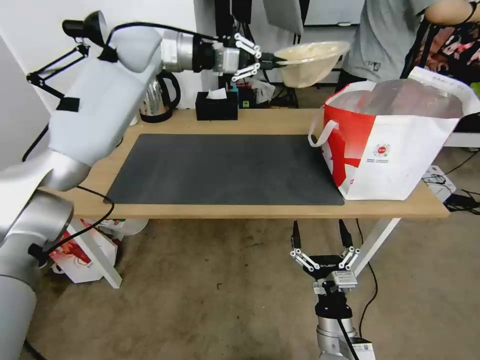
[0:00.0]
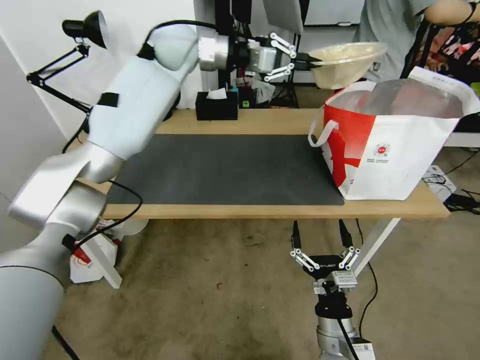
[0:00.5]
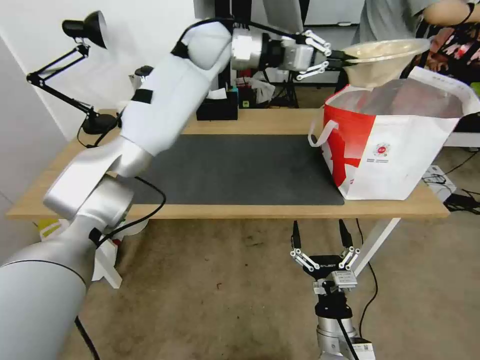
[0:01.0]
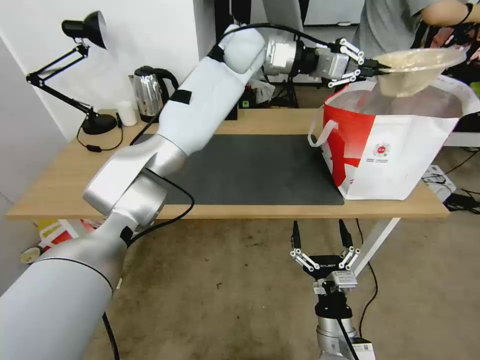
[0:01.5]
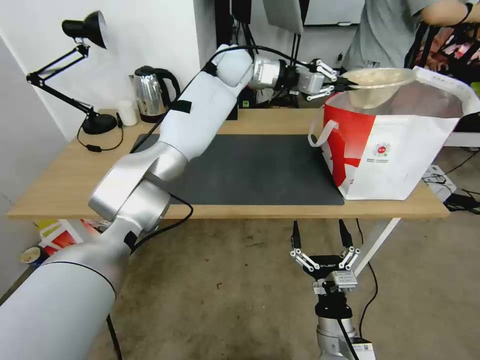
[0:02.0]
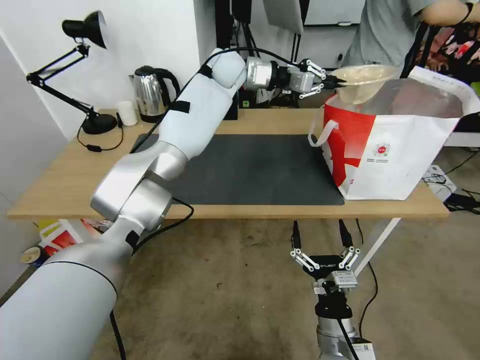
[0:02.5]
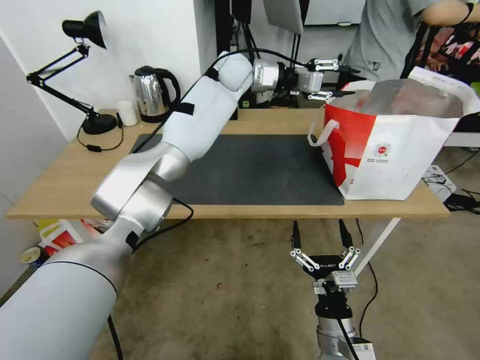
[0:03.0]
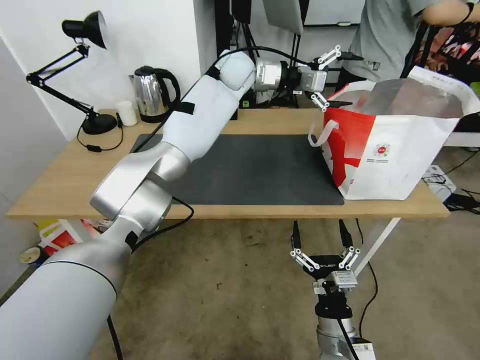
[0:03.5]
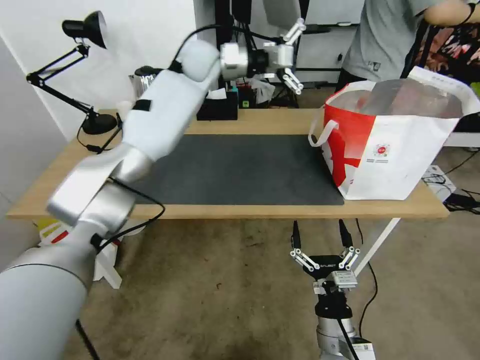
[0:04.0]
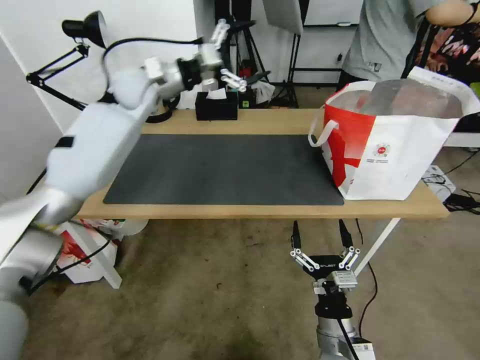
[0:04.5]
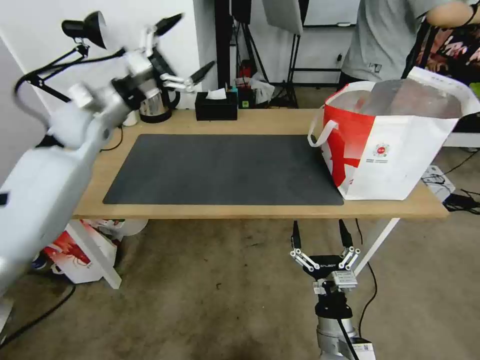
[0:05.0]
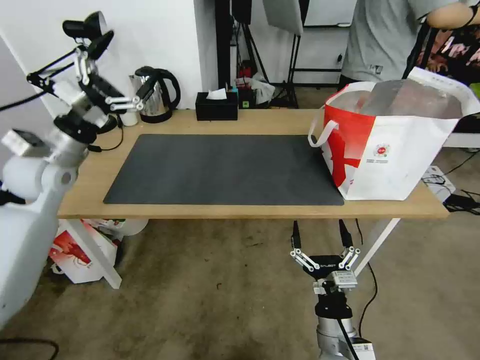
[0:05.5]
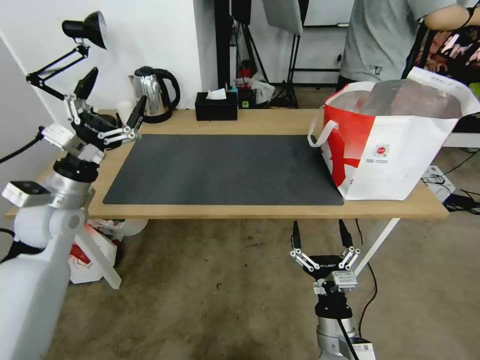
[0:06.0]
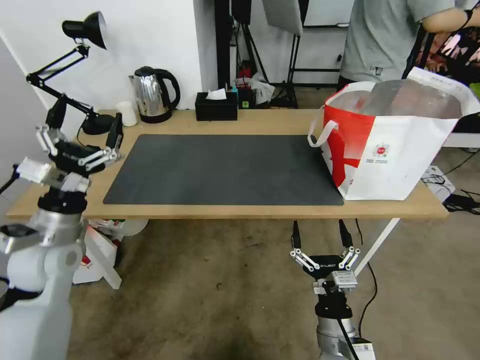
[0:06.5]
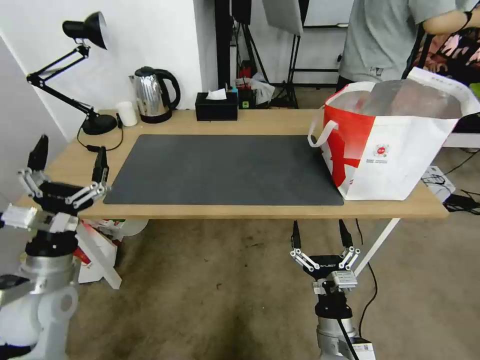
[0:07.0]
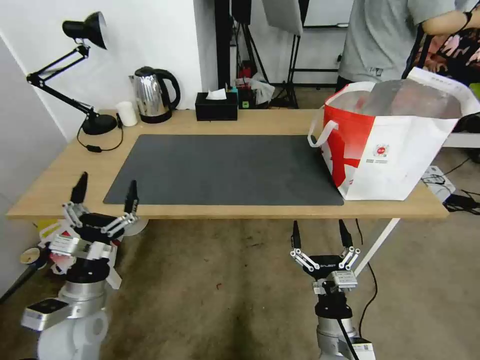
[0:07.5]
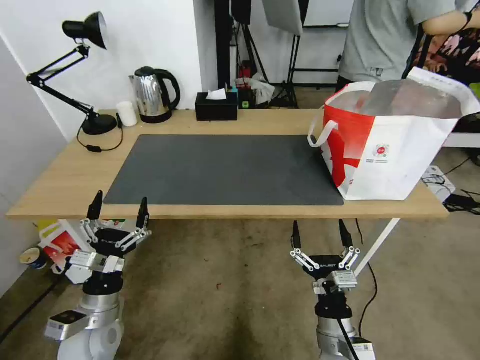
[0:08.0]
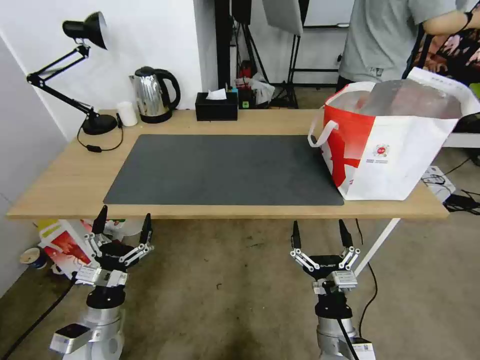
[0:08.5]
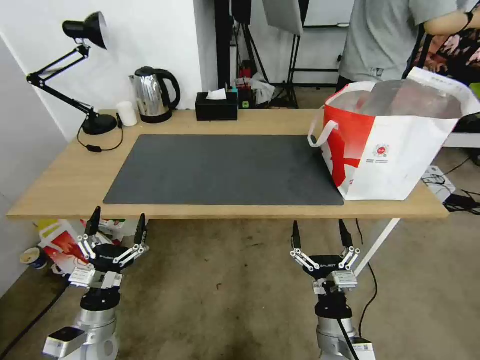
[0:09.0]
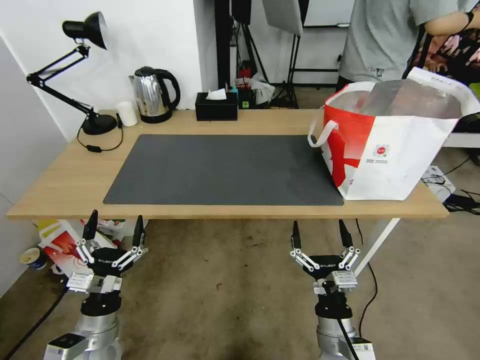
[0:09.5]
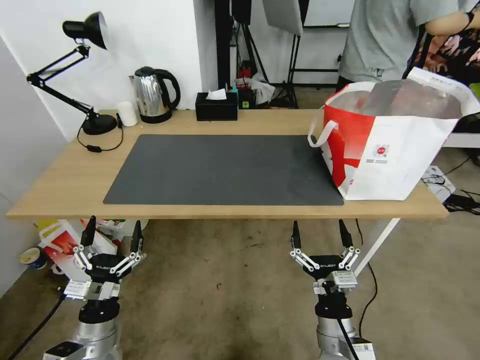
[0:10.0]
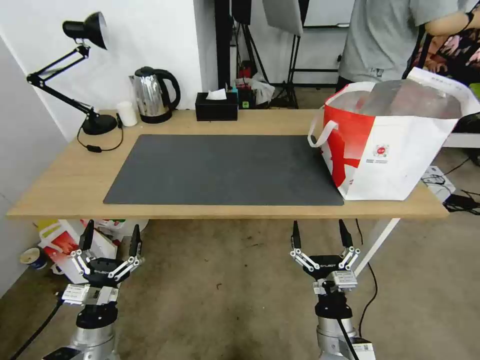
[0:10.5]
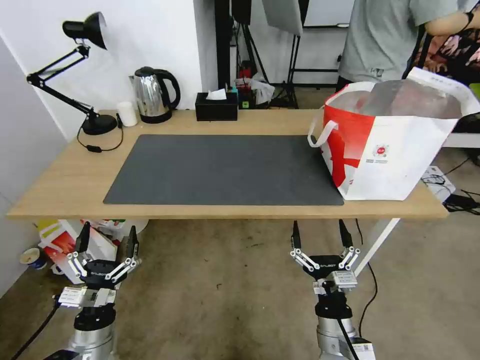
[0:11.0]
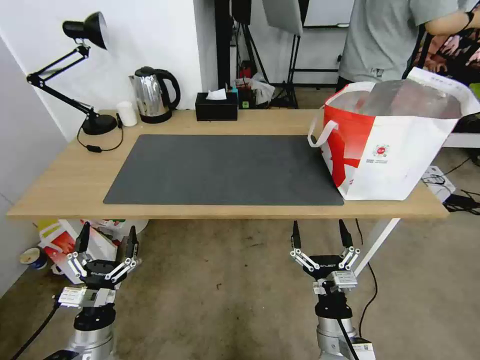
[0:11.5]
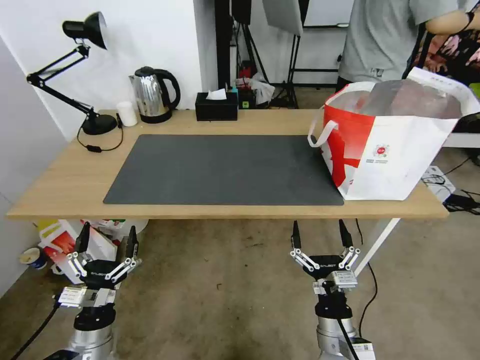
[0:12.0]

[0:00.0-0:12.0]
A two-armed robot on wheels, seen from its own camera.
Task of the whole recording: Pick up the trash from the table and place it into the takeout bag.
0:00.0 to 0:02.0: The left gripper moves to the right, some 20 cm.
0:02.0 to 0:04.0: The left gripper goes about 10 cm to the left, and opens its fingers.
0:04.0 to 0:06.0: The left gripper moves backward, to the left and downward, some 40 cm.
0:06.0 to 0:08.0: The left gripper heads downward and backward, covering about 25 cm.
0:08.0 to 0:10.0: The left gripper shifts by about 5 cm.
0:10.0 to 0:12.0: The two grippers keep their place.

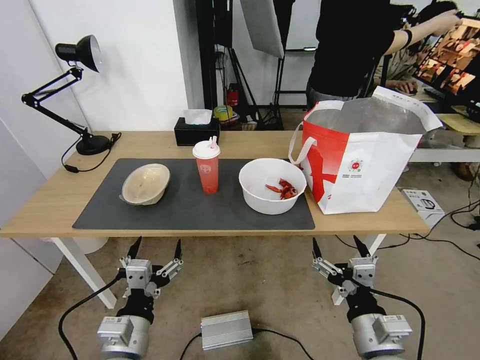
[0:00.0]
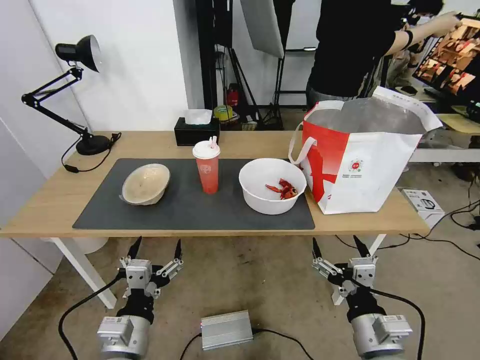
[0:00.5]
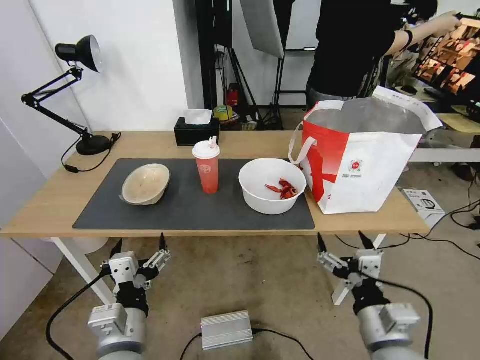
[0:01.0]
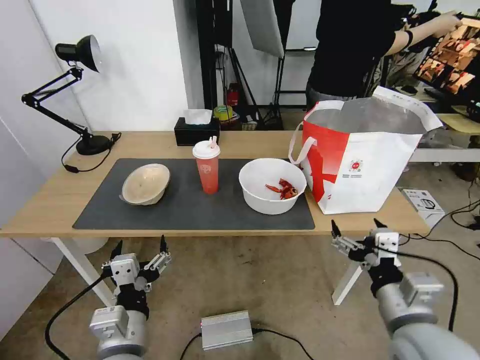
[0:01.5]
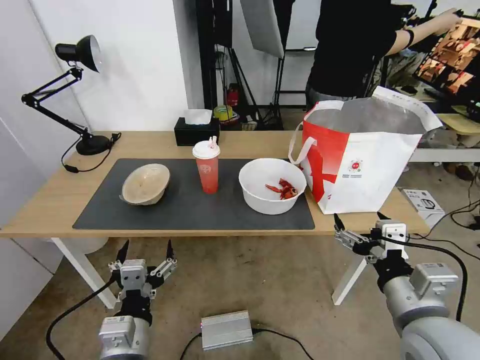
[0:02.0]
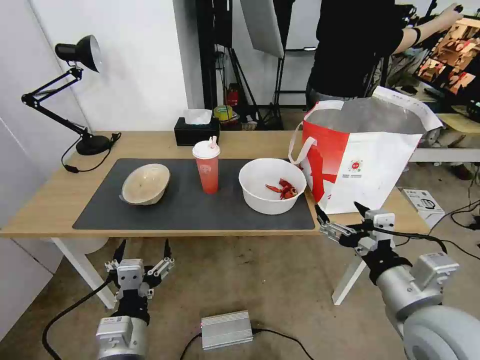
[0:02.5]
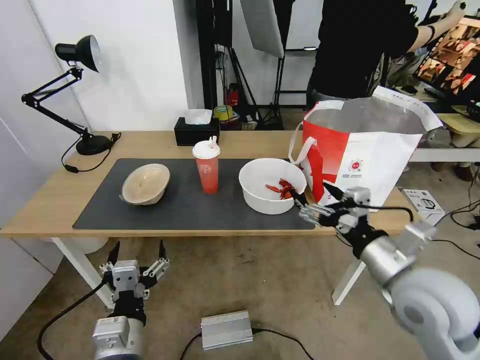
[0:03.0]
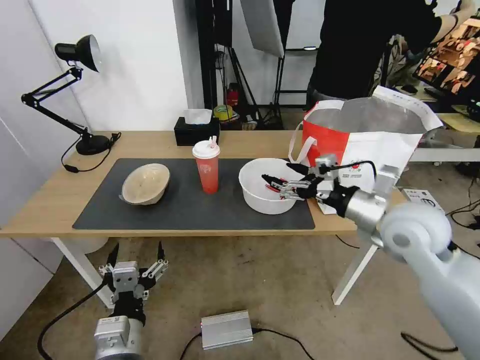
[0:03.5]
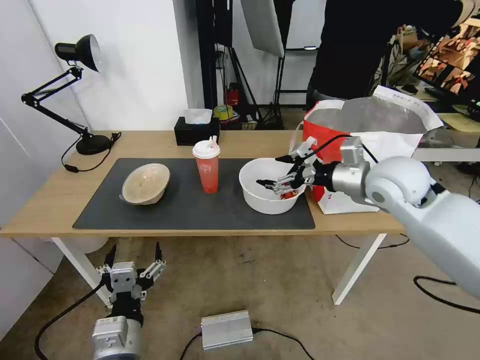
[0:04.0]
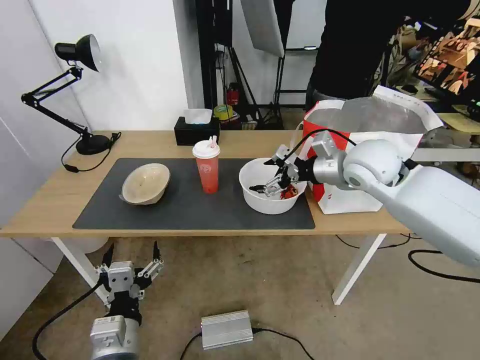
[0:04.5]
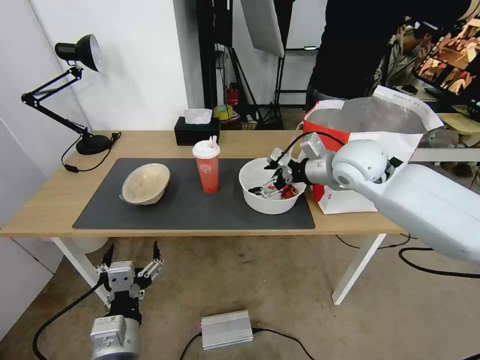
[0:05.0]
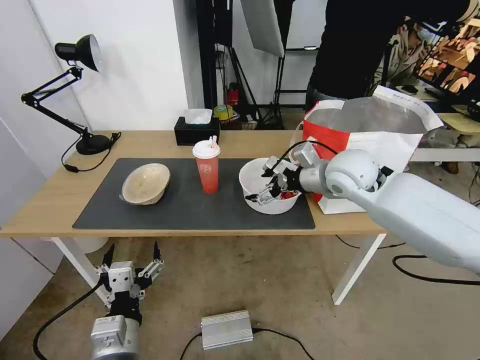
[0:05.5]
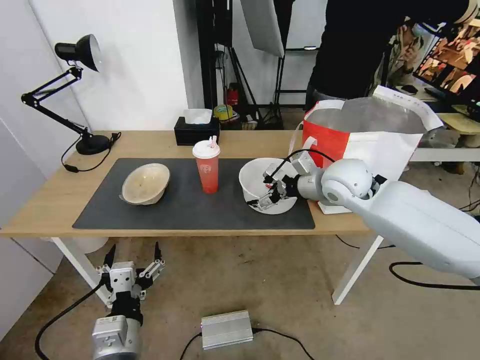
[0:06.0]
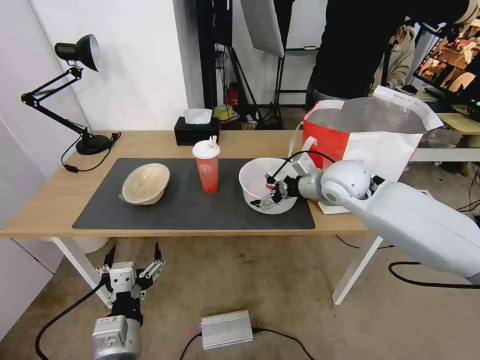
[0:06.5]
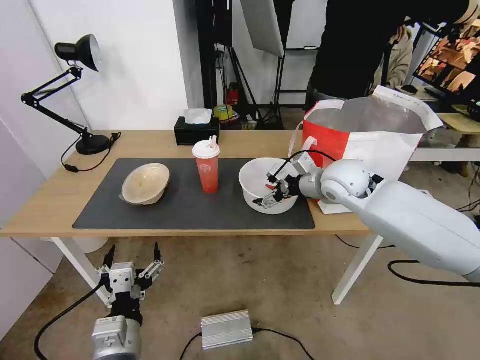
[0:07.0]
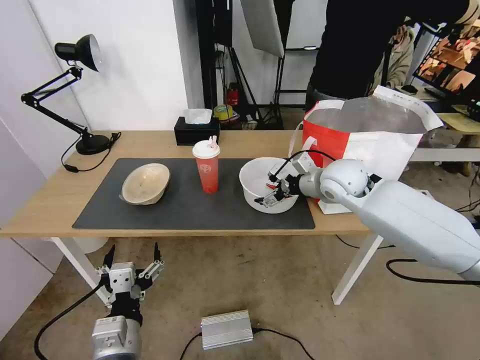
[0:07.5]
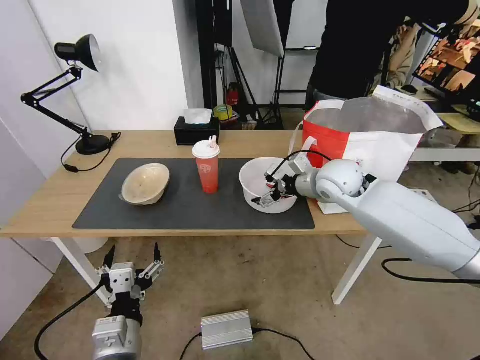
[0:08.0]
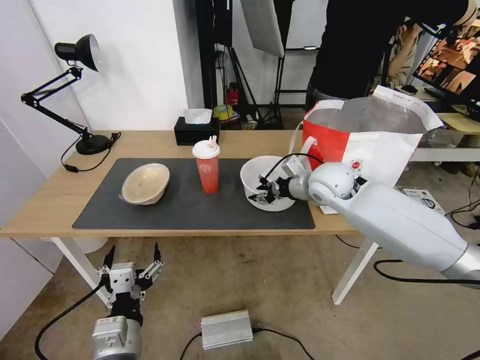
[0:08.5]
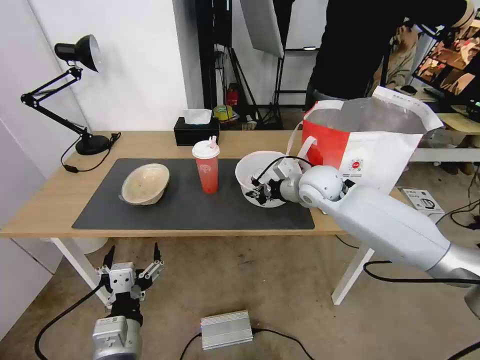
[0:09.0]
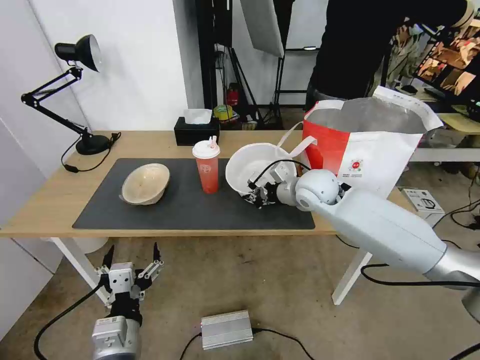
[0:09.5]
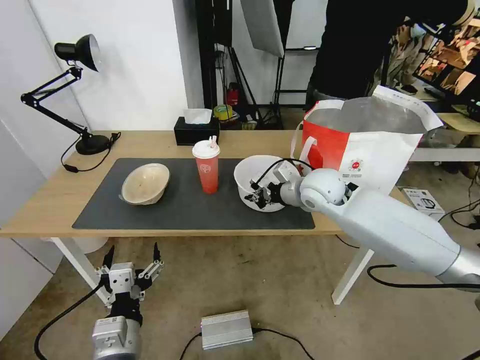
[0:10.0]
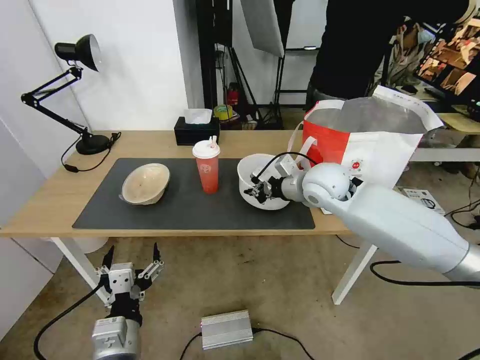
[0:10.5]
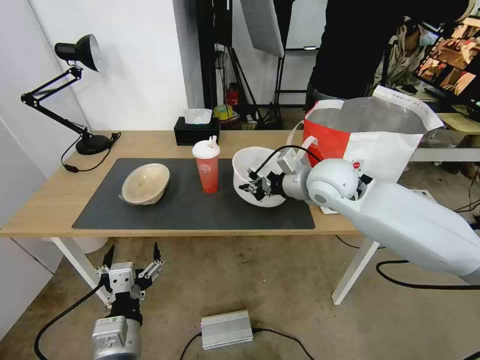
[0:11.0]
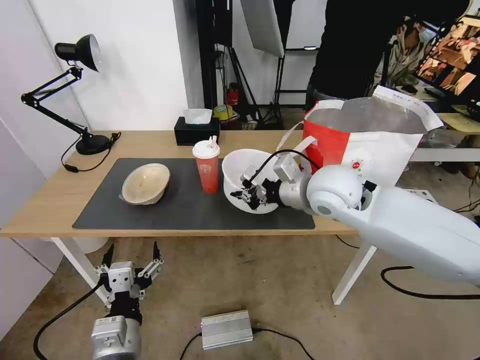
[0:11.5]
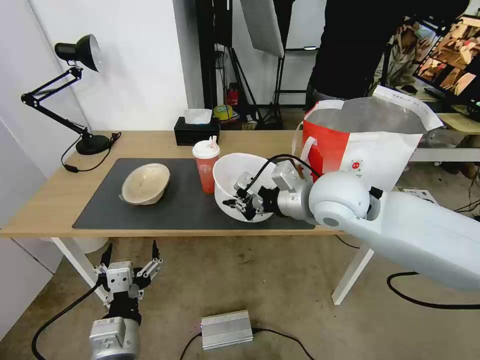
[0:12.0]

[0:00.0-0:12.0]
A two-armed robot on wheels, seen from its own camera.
Task of the whole recording: Pick up the trash from the table and place it into the takeout bag.
0:02.0 to 0:04.0: The right gripper travels forward by roughly 25 cm.
0:04.0 to 0:06.0: The right gripper shifts approximately 10 cm to the left and forward.
0:06.0 to 0:08.0: The grippers stay close to where they were, moving slightly.
0:08.0 to 0:10.0: The right gripper closes its fingers.
0:10.0 to 0:12.0: The right gripper travels backward and upward by roughly 15 cm.

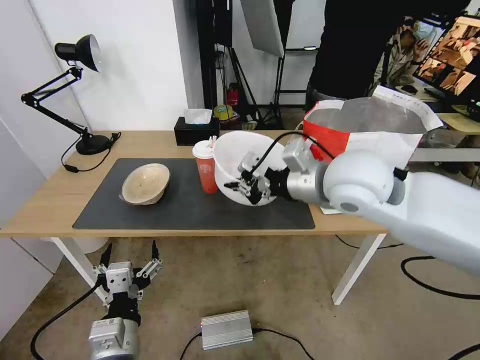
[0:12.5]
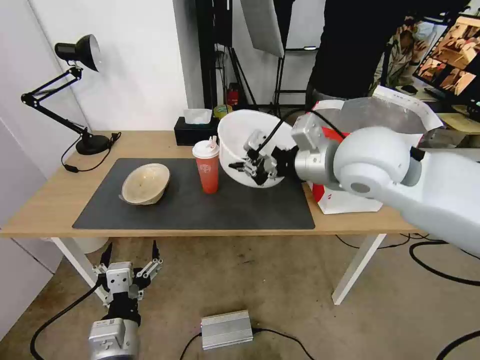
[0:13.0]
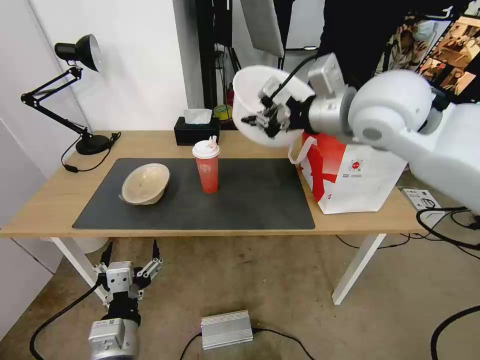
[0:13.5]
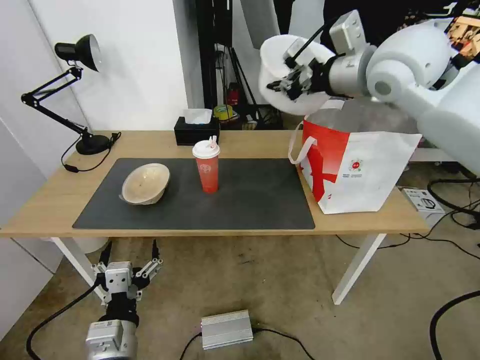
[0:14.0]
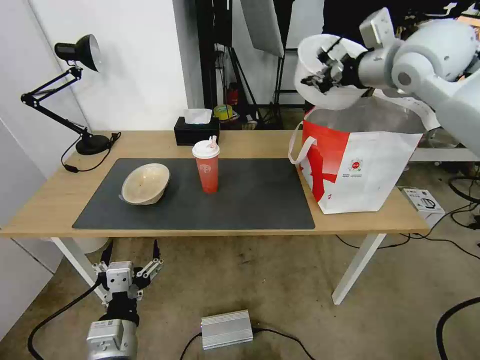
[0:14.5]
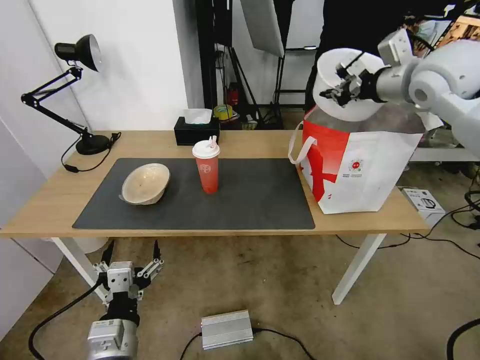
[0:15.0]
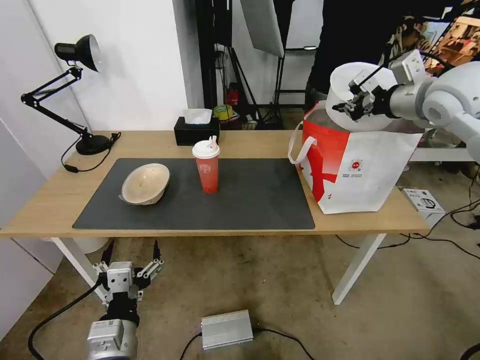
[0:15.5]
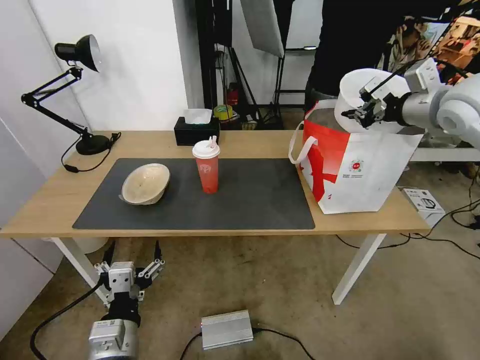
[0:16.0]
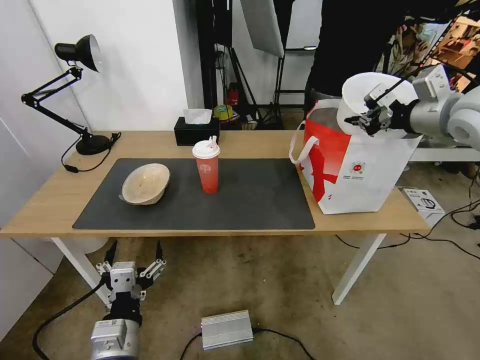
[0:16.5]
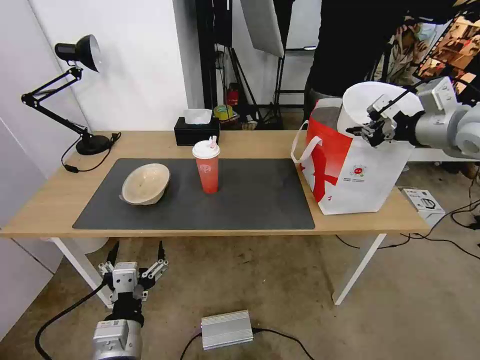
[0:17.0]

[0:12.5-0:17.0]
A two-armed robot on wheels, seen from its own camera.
Task of the whole recording: Pick up the trash from the table and place it into the takeout bag.
0:12.5 to 0:14.5: The right gripper moves forward, upward and to the right, some 25 cm.
0:14.5 to 0:17.0: The right gripper is displaced to the right, backward and downward by roughly 15 cm.
